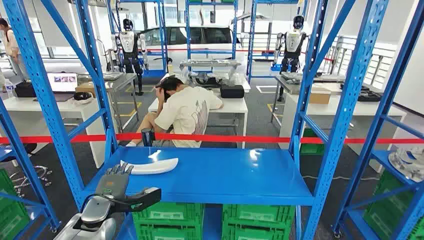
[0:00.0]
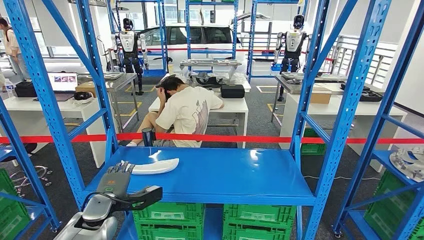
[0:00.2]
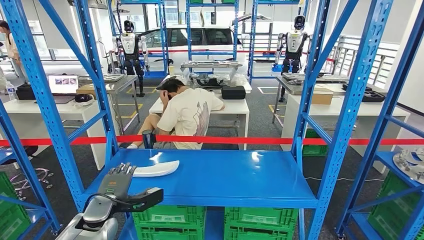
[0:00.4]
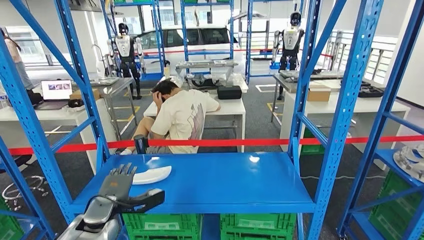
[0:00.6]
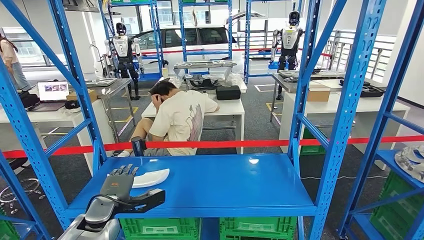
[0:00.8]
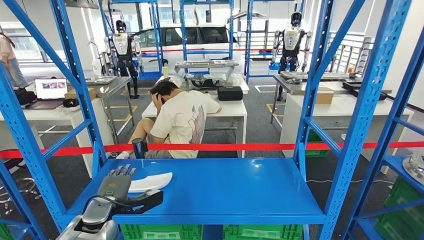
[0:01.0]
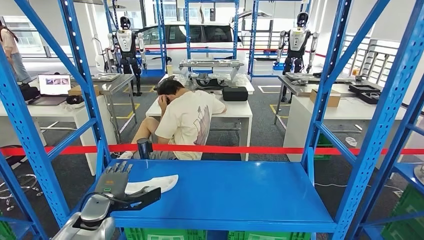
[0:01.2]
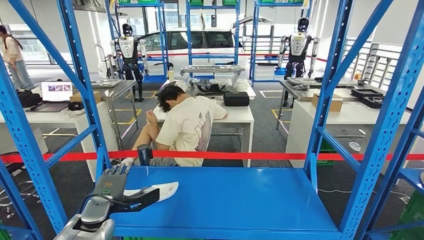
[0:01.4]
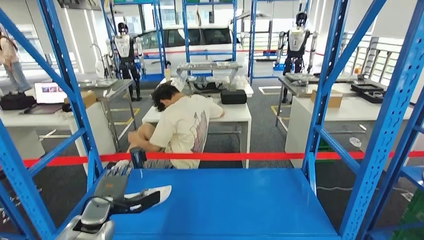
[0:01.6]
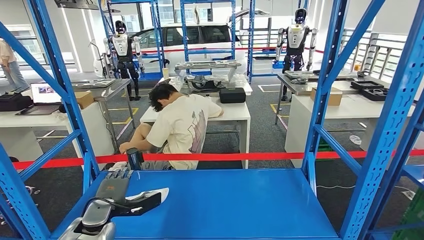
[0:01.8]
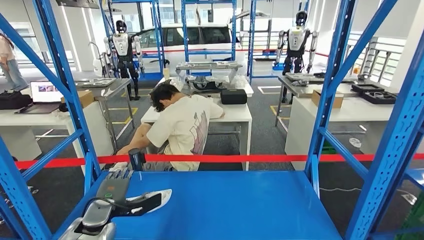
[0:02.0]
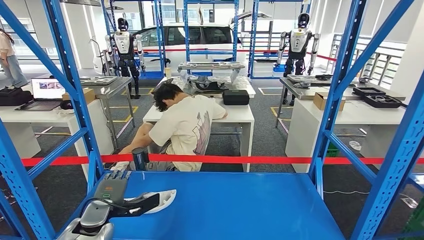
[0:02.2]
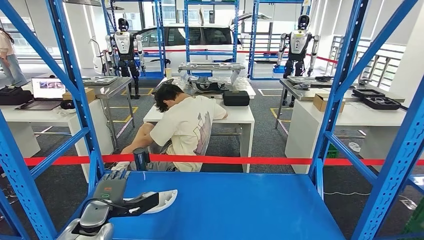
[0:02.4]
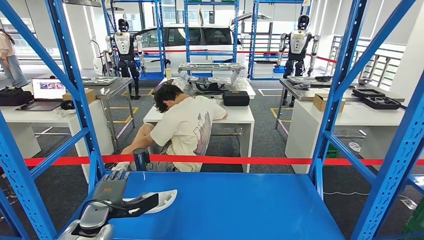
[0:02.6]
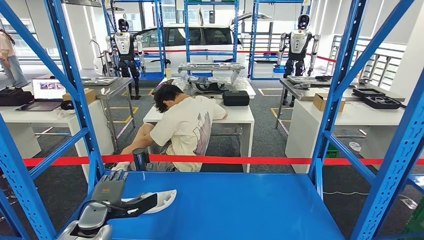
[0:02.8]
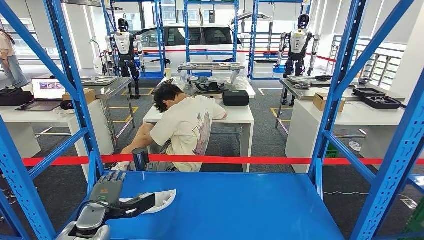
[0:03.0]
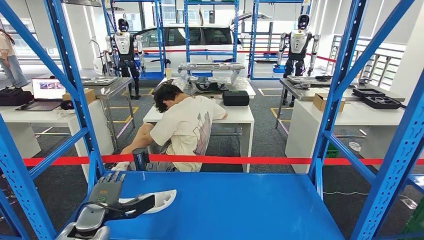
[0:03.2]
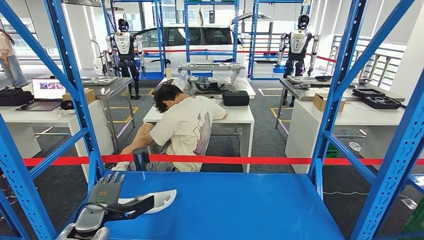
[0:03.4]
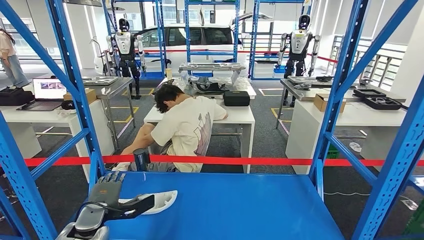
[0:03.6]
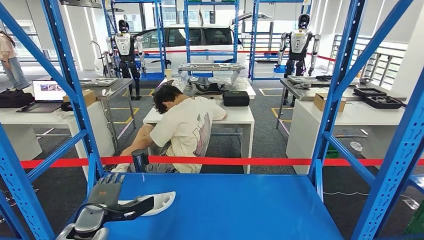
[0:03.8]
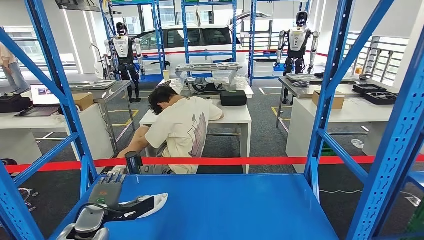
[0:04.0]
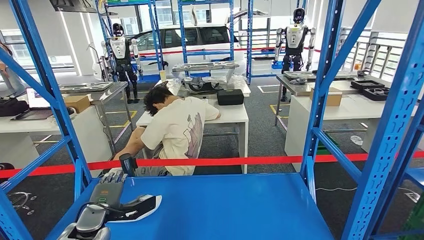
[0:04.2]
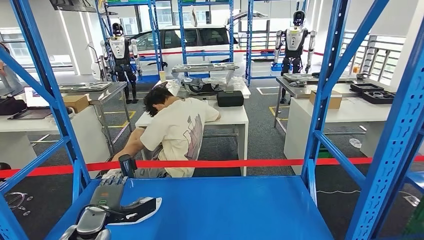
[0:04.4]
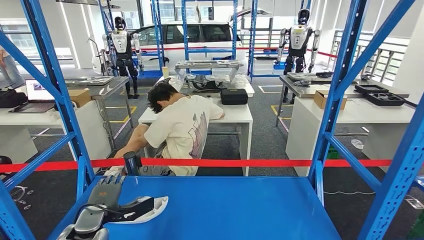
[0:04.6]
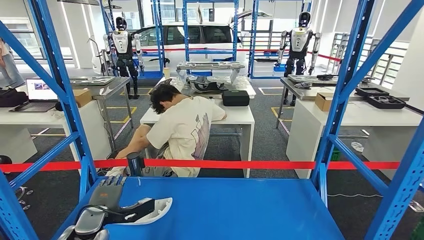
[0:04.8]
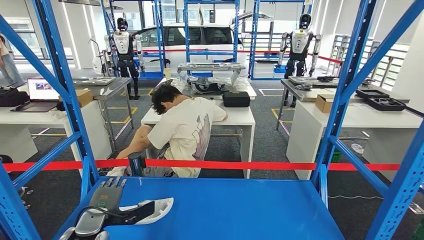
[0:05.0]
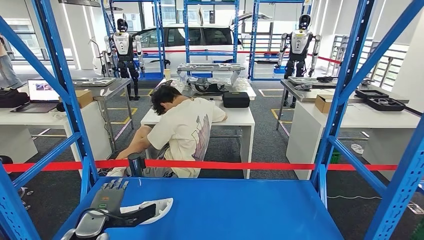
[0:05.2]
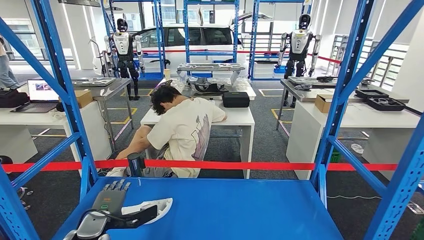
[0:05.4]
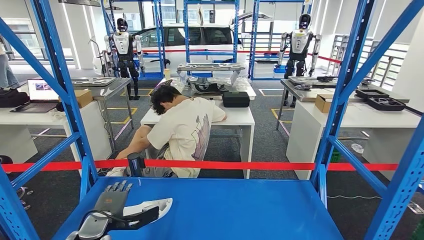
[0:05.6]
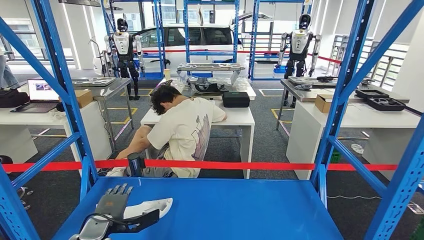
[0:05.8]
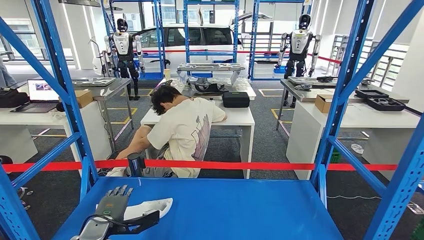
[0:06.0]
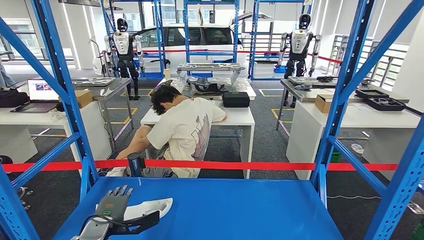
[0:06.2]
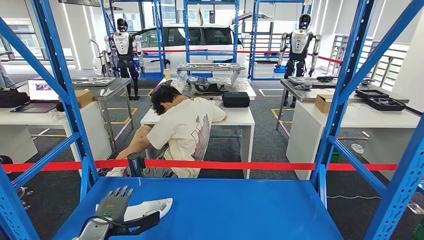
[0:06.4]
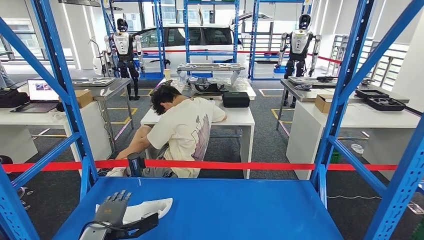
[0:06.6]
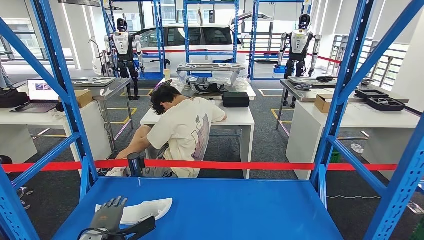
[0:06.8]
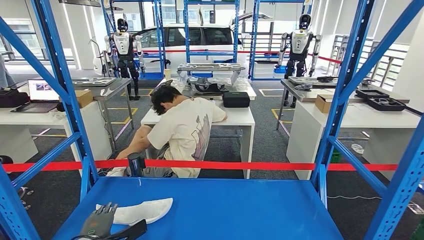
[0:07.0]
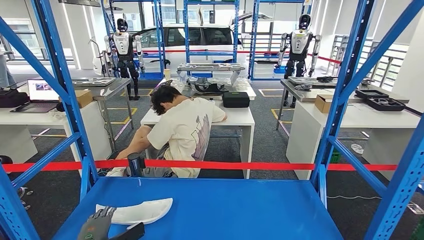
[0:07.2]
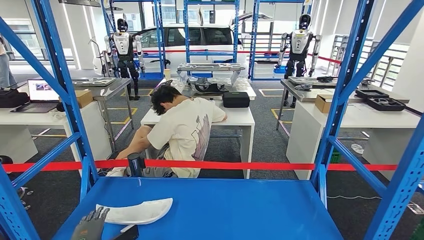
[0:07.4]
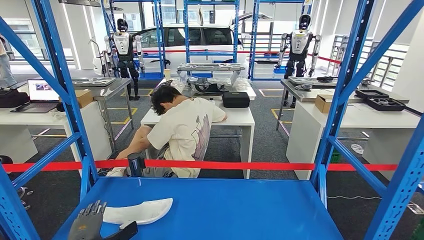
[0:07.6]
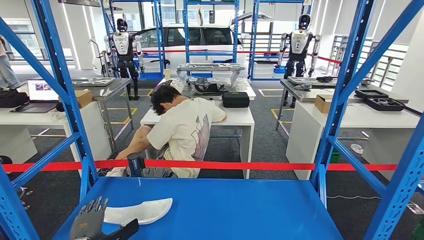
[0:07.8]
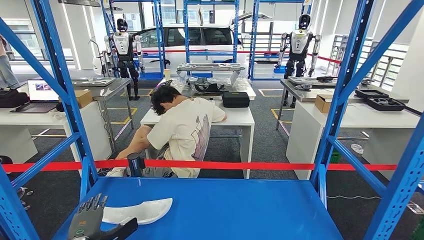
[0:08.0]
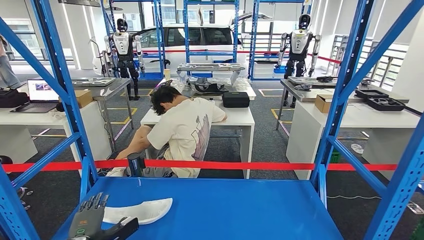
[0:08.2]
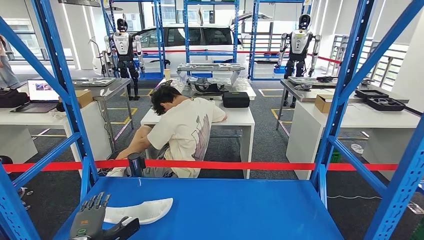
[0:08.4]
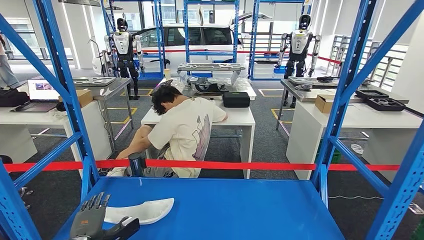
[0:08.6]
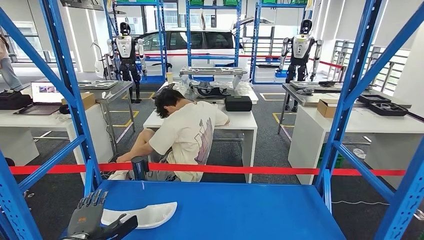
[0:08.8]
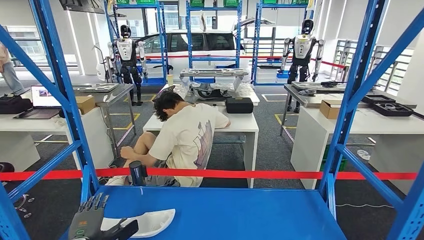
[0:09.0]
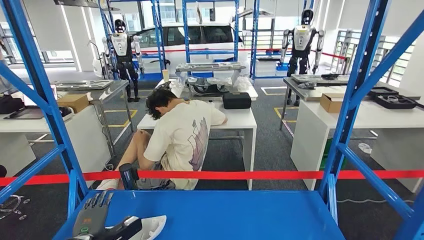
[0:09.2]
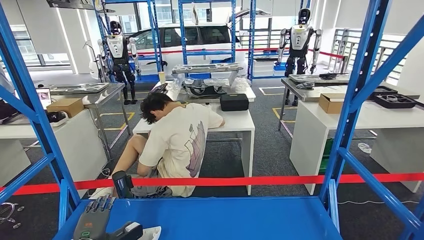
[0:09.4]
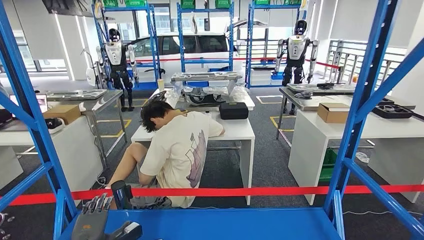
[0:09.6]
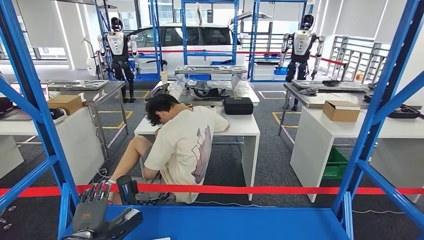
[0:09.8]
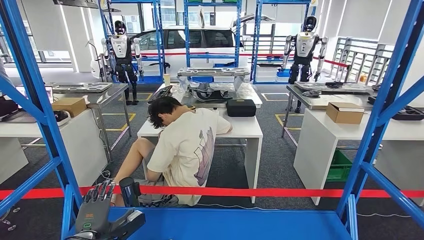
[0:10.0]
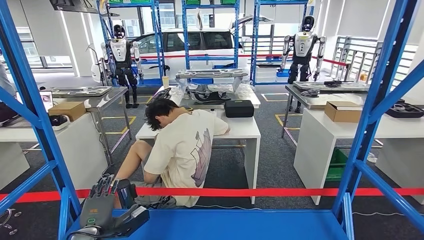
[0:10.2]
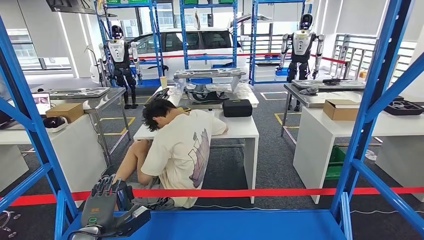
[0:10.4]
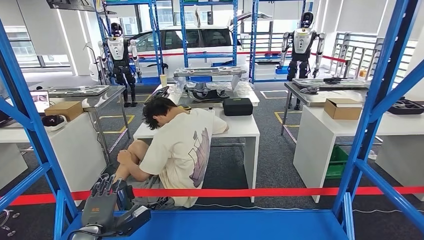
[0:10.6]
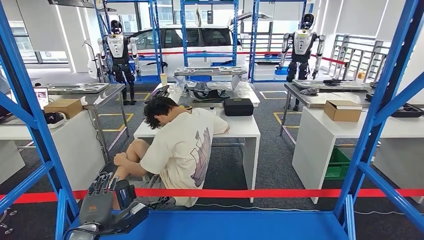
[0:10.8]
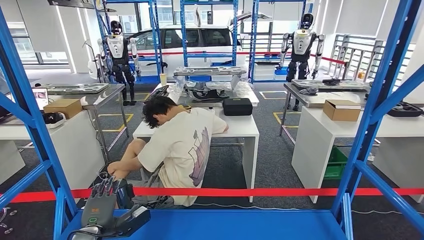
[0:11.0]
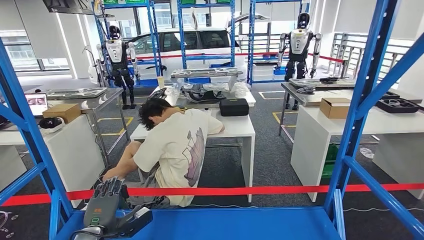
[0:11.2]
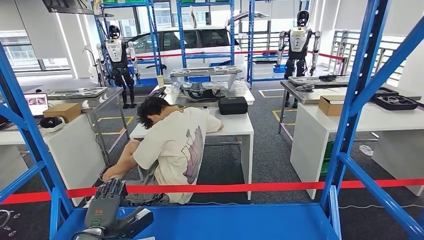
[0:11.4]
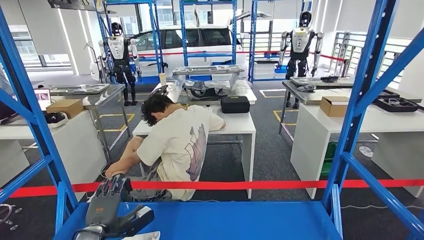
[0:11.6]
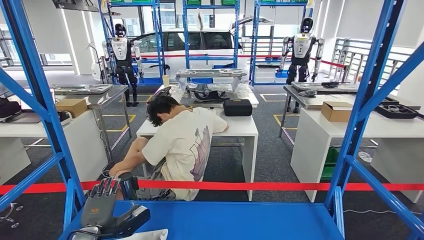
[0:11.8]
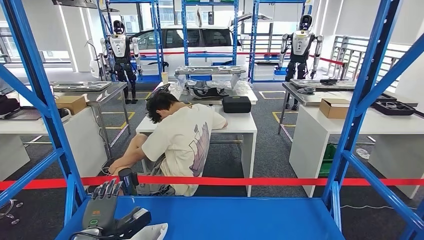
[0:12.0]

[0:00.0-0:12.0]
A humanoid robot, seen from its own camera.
0:06.0 to 0:07.6: The left hand shifts about 10 cm to the left and downward.

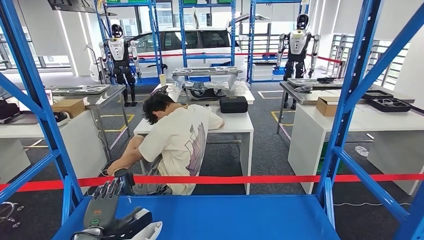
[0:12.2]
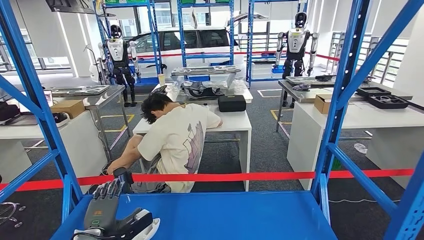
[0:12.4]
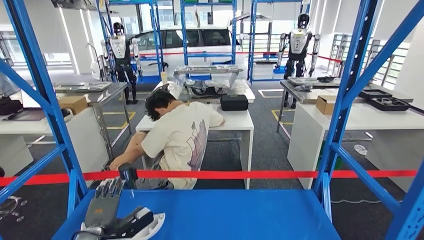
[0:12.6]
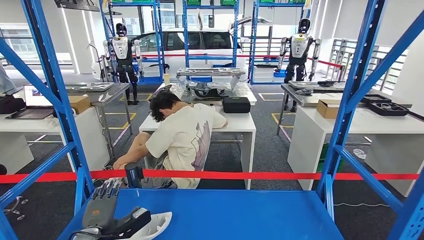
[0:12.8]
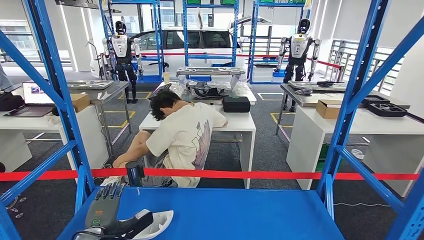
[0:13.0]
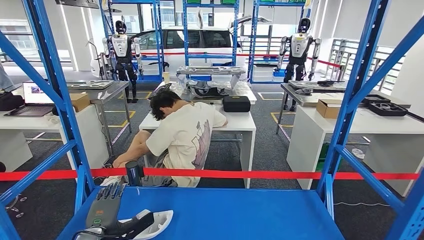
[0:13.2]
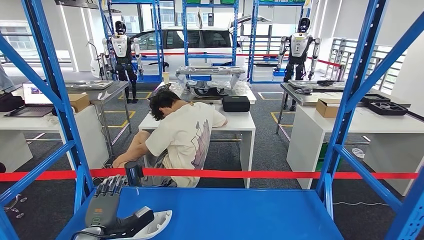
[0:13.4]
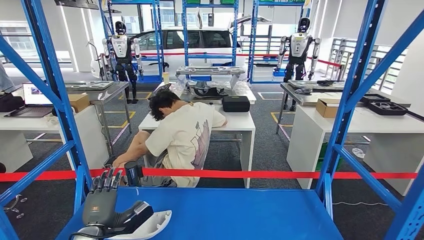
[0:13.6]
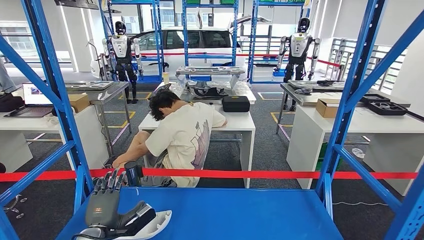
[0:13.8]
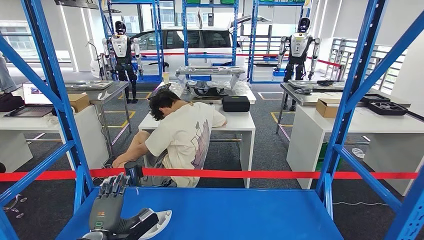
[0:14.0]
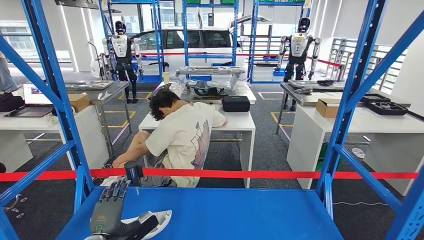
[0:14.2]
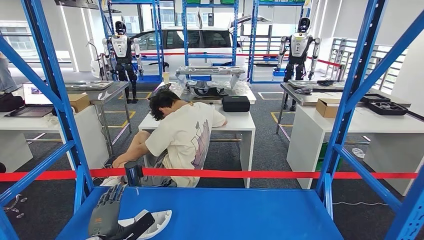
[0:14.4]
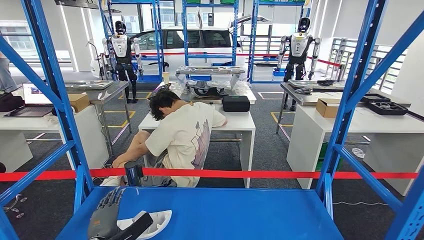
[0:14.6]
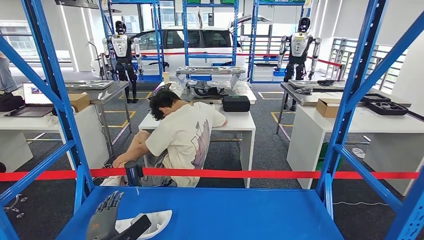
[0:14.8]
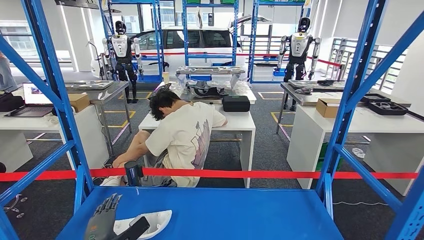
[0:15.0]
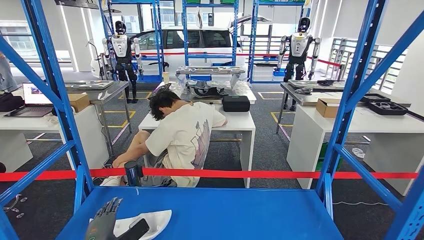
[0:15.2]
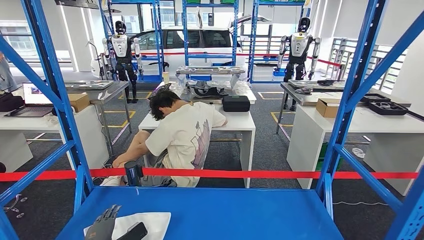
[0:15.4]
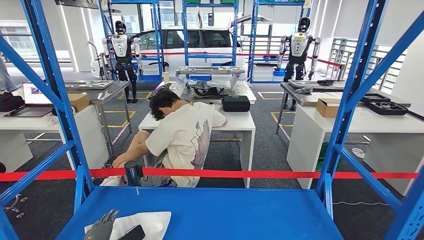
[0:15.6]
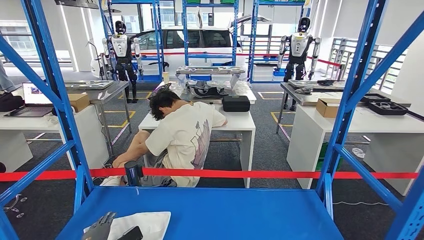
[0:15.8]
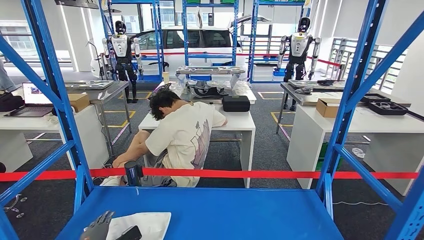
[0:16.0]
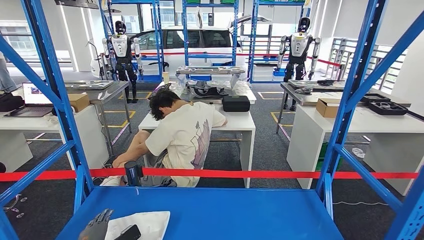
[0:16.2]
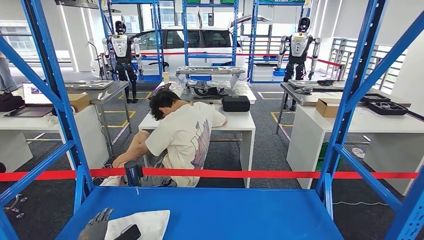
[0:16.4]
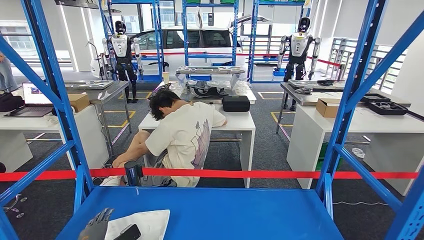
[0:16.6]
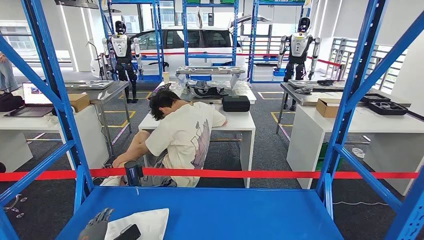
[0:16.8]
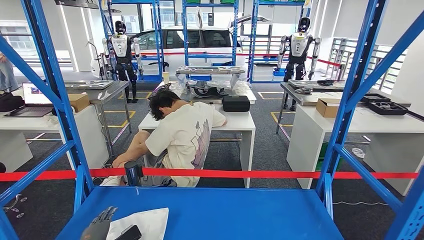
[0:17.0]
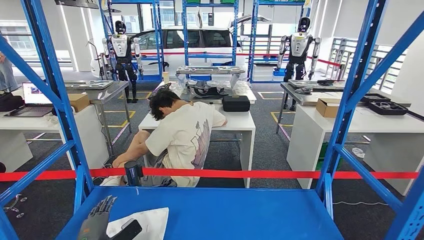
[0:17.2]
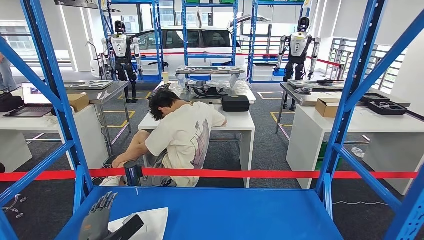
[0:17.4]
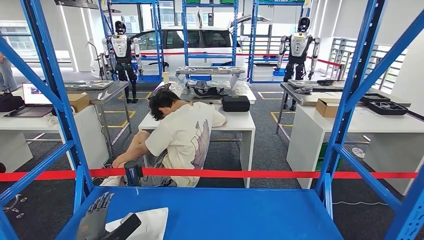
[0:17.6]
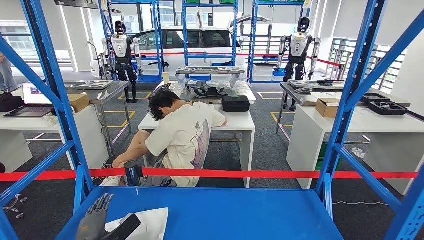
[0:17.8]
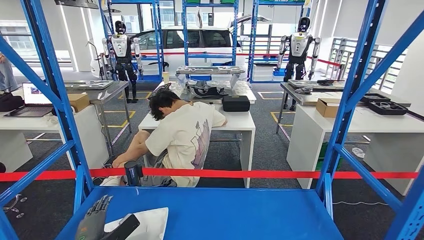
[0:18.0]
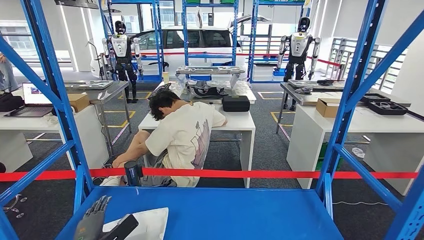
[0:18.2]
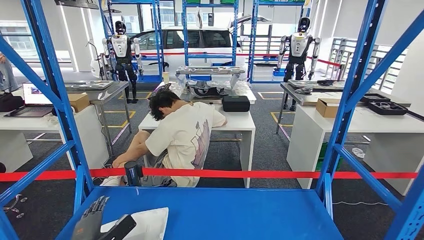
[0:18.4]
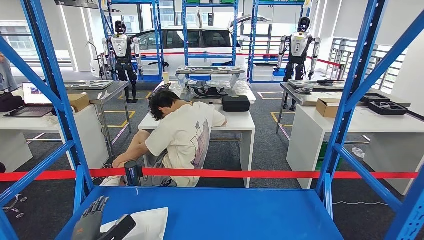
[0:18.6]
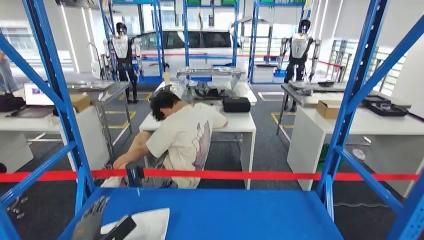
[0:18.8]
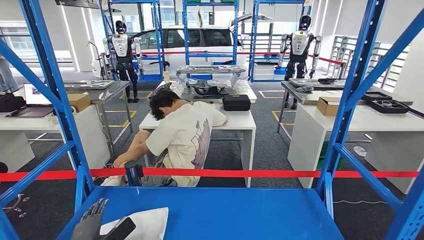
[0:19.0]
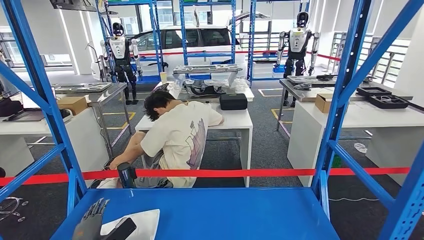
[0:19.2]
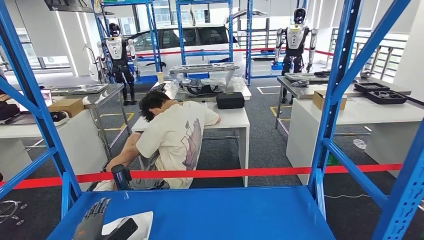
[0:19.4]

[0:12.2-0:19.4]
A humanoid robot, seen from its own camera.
0:15.0 to 0:18.0: The hands make only small movements.
